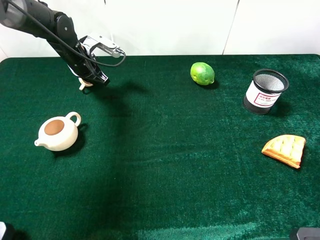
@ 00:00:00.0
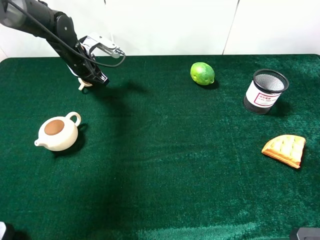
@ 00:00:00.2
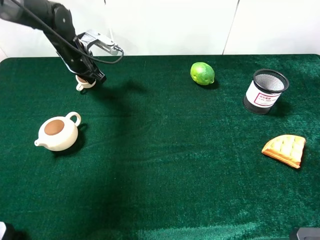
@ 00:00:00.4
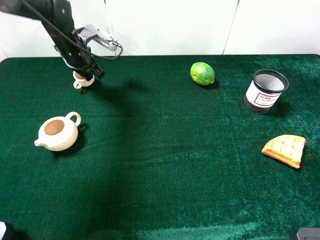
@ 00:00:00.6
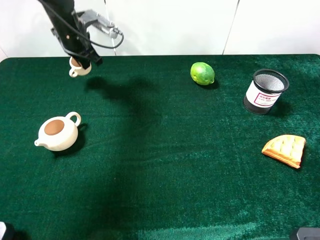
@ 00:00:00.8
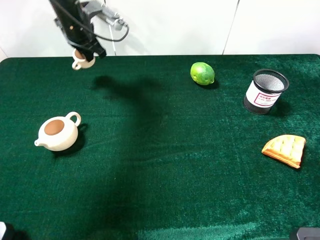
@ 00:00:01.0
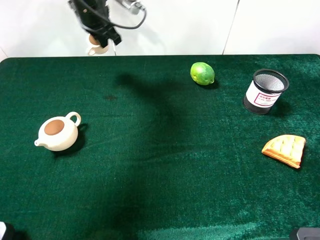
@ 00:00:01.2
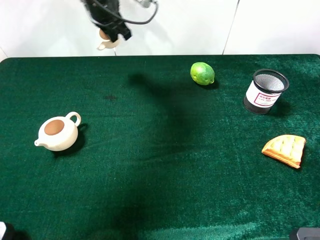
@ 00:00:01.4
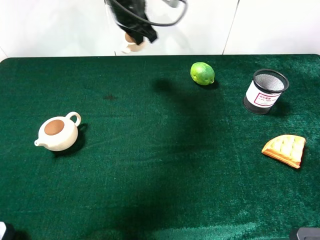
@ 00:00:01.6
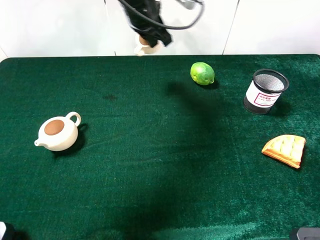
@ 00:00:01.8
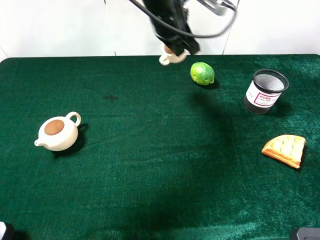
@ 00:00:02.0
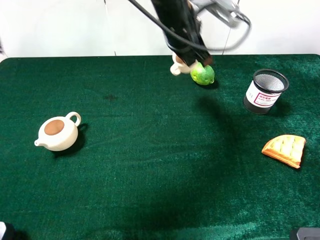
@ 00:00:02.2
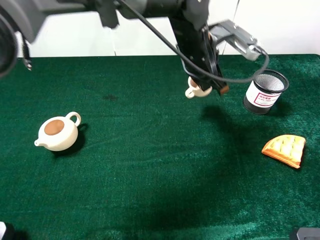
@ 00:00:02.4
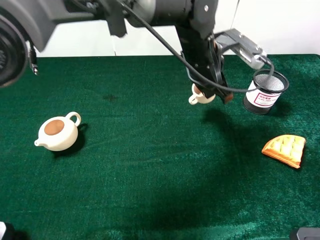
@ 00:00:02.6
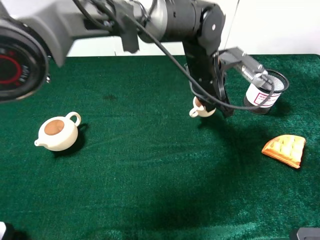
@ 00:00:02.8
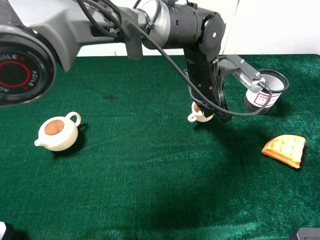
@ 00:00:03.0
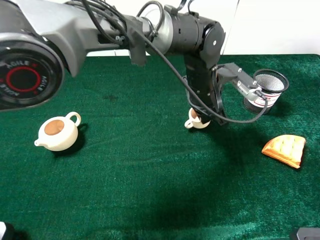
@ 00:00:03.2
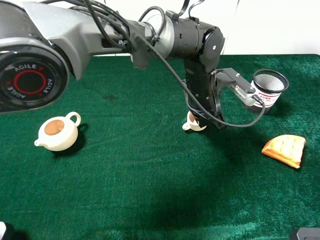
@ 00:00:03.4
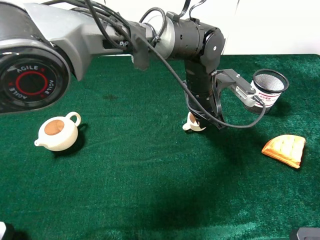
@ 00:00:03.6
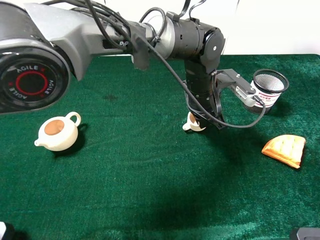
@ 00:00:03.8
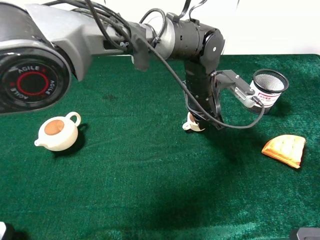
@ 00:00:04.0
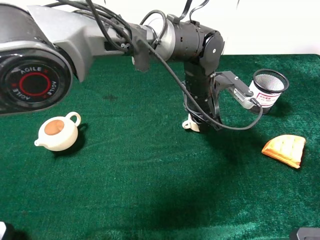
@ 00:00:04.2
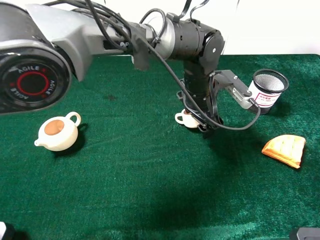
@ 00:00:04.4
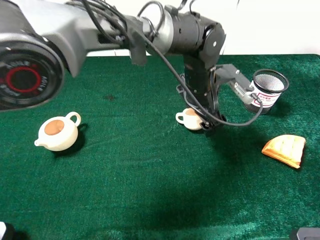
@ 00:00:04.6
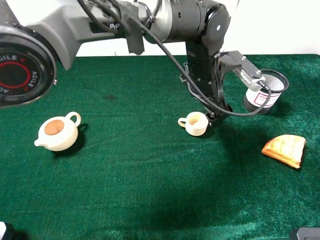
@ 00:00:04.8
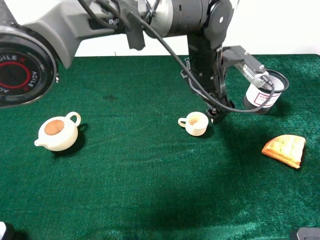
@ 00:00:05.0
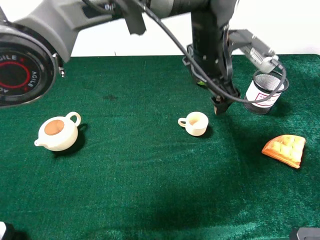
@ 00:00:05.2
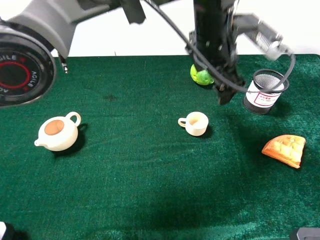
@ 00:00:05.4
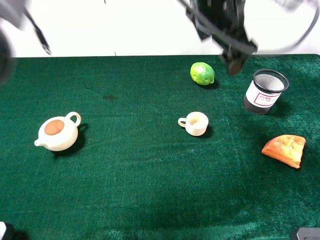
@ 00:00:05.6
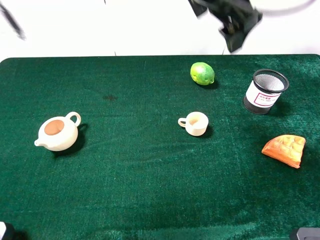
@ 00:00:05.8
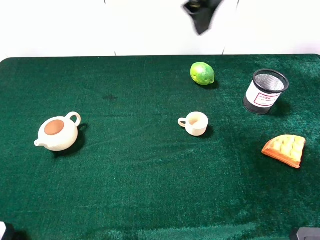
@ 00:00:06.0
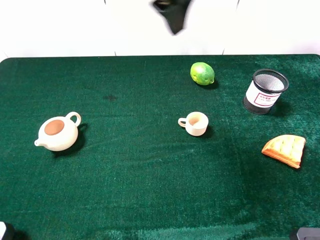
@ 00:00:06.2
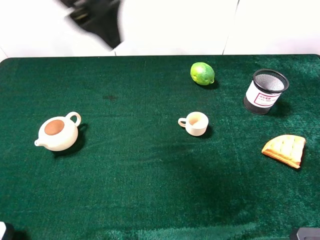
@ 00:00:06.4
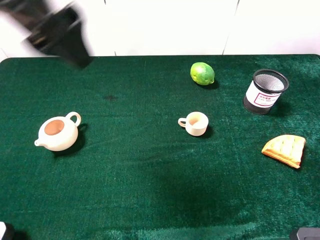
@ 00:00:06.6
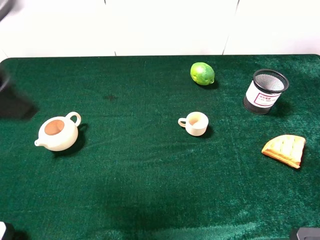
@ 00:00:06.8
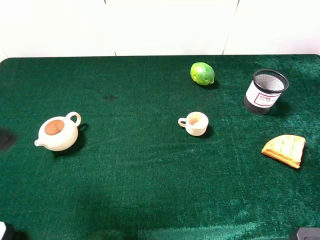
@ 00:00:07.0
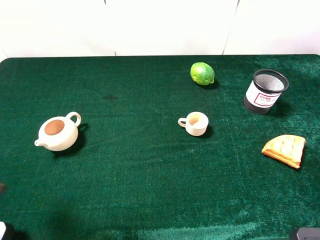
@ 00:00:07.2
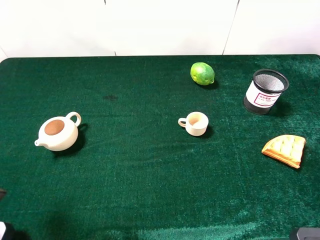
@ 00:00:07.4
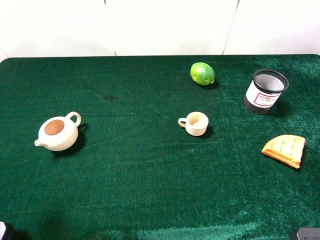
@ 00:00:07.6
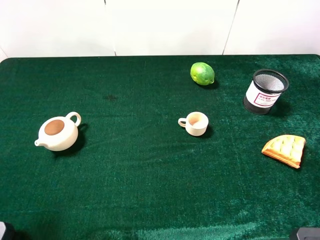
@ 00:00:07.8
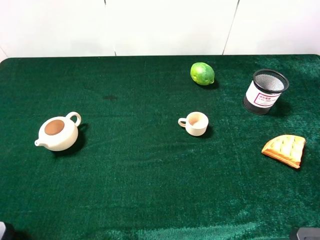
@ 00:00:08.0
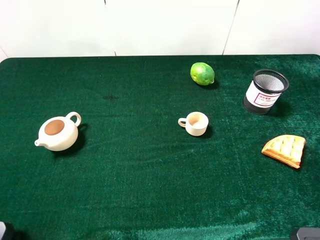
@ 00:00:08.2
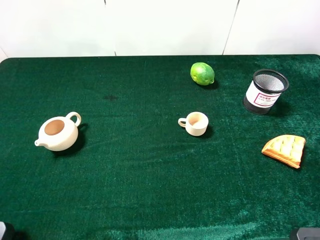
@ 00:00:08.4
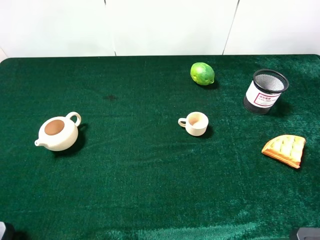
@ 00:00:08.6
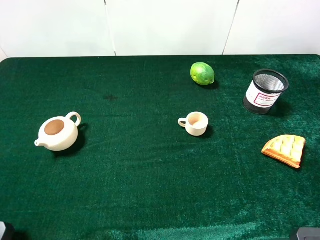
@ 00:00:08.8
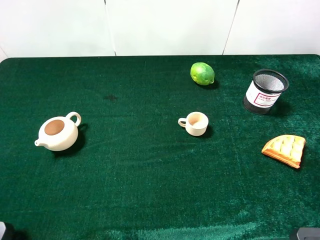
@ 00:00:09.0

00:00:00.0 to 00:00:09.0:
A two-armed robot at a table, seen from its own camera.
Task of the whole recording: the gripper move the object.
Step, 00:00:00.0 to 00:00:04.6: Place the teacup on the table with the left gripper.
00:00:00.0 to 00:00:01.6: The left gripper shifts some 20 cm to the right and upward.
00:00:01.6 to 00:00:03.0: The left gripper heads to the right, backward and downward, covering approximately 20 cm.
00:00:03.0 to 00:00:04.4: The left gripper opens up.
00:00:04.4 to 00:00:06.0: The left gripper shifts some 25 cm upward.
00:00:06.0 to 00:00:07.6: The left gripper heads to the left and backward, covering some 35 cm.
